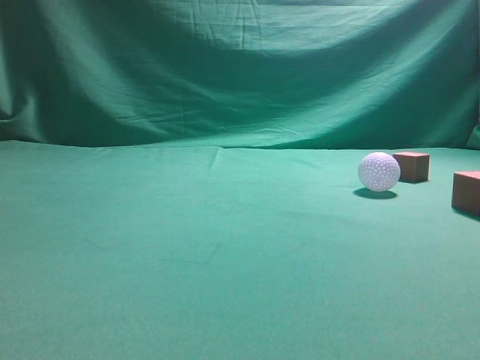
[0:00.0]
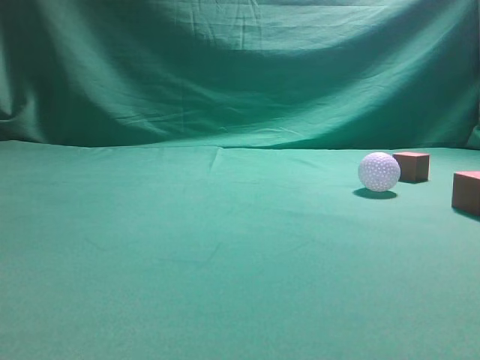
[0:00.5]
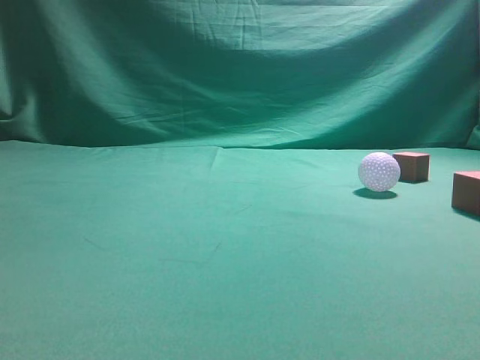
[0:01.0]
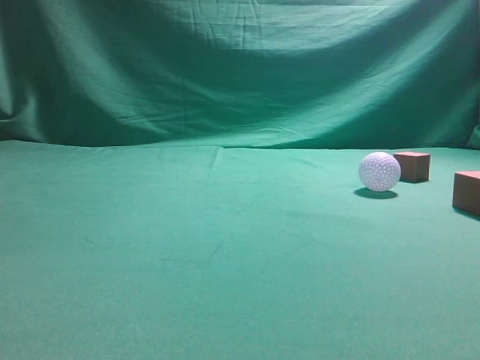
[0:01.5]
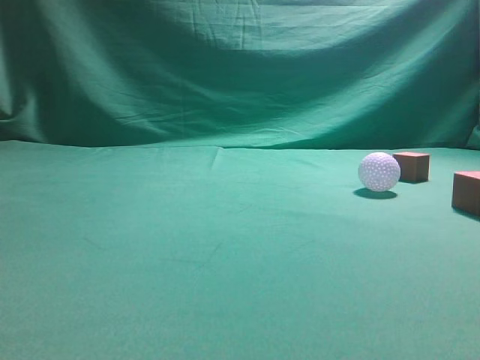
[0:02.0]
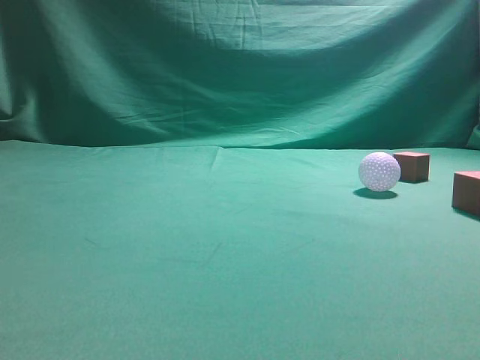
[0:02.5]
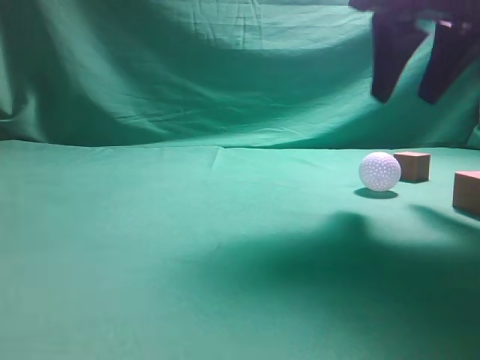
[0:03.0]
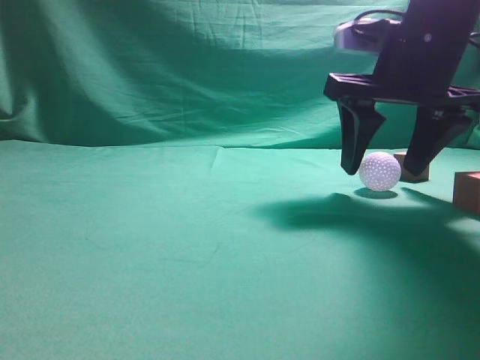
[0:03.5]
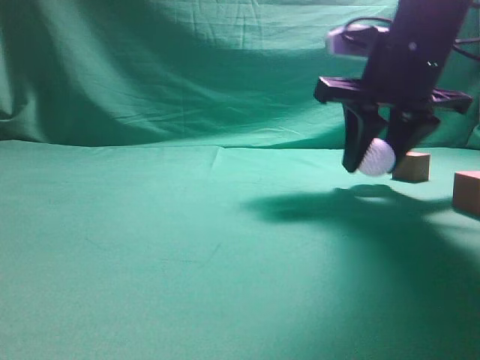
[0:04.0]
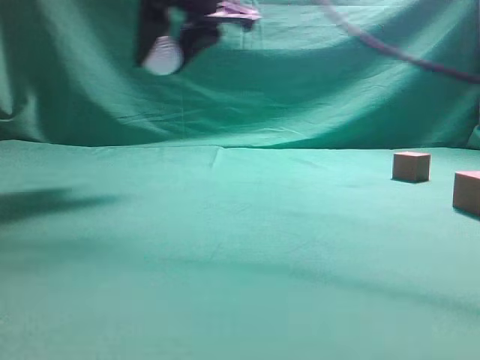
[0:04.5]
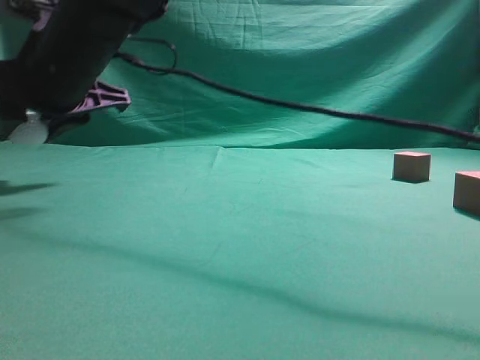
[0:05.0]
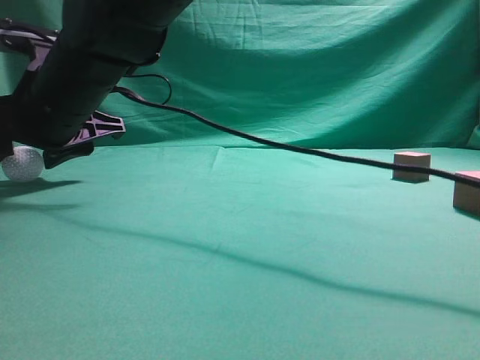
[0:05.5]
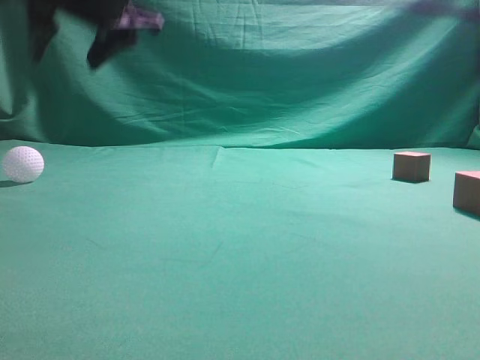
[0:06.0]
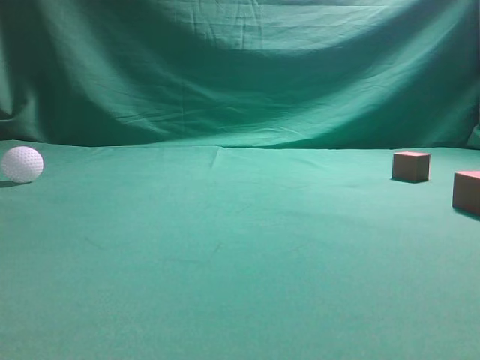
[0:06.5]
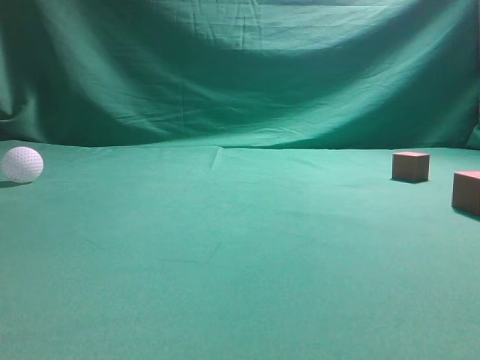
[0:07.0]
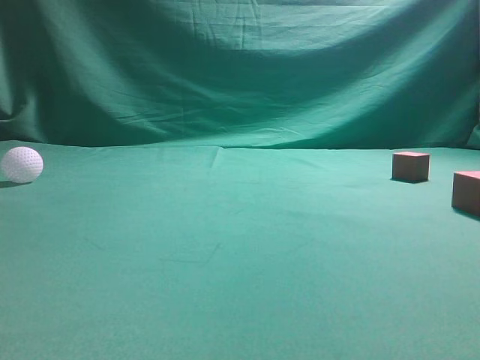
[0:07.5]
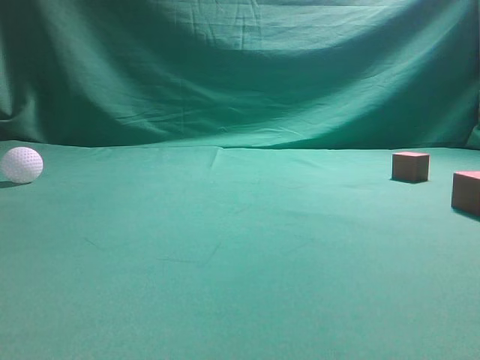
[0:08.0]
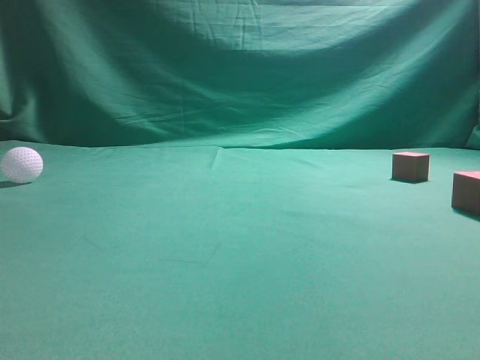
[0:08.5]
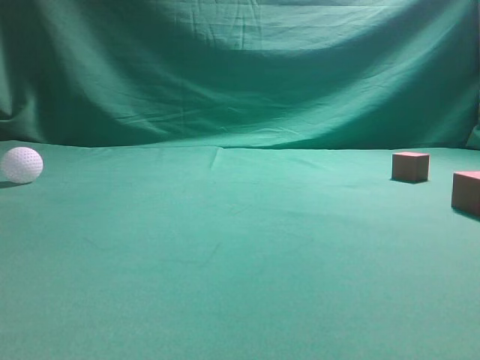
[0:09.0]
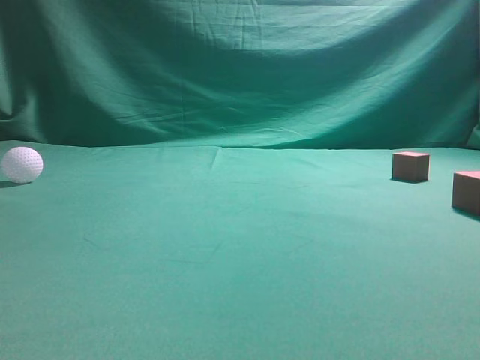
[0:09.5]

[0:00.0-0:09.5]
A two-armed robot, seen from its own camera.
Step, 0:00.0 to 0:03.0: Grasp the spherical object on the right side.
0:02.0 to 0:04.0: The right gripper shifts approximately 30 cm forward, to the left and downward, and opens.
0:04.0 to 0:05.5: The right gripper heads to the left, covering roughly 30 cm.
0:05.5 to 0:07.5: The right gripper shifts some 50 cm to the right, backward and upward, and closes its fingers.
